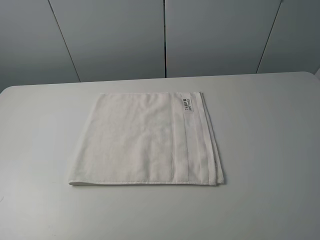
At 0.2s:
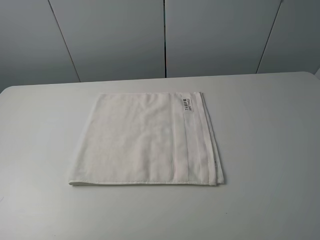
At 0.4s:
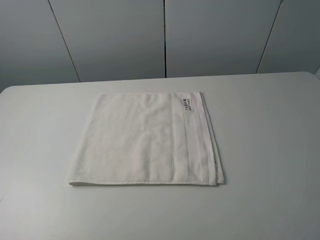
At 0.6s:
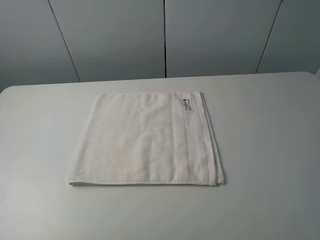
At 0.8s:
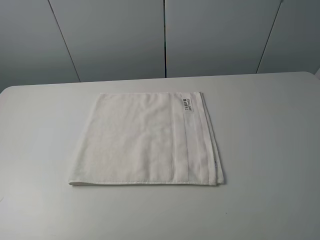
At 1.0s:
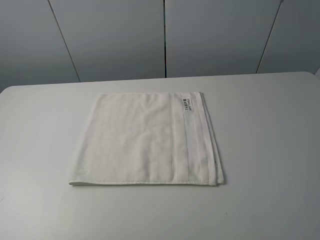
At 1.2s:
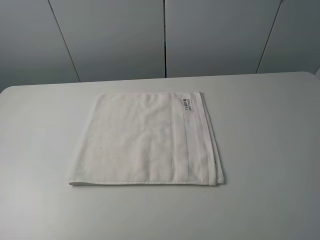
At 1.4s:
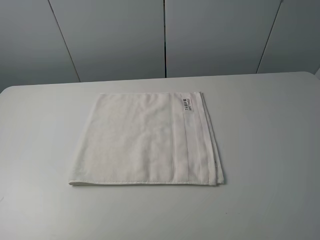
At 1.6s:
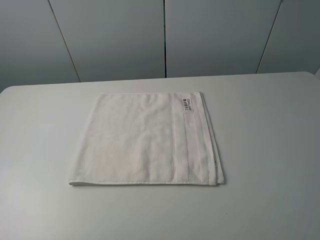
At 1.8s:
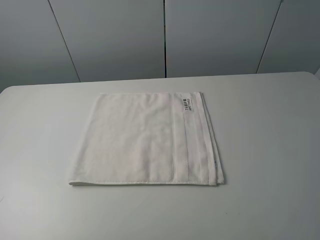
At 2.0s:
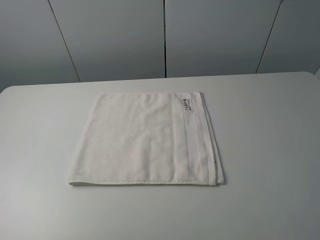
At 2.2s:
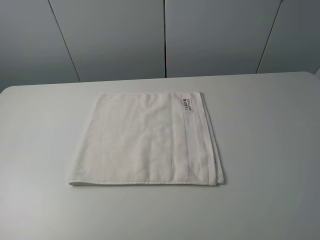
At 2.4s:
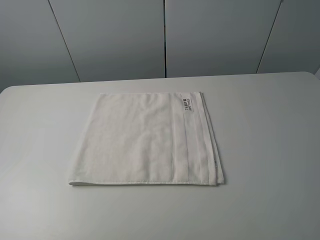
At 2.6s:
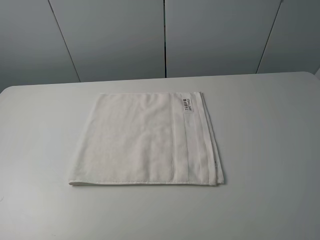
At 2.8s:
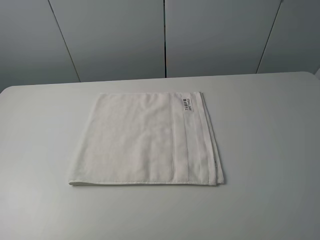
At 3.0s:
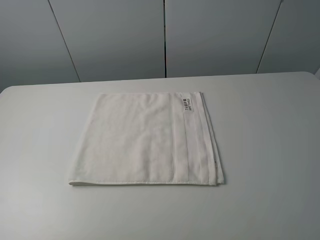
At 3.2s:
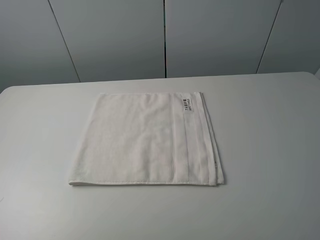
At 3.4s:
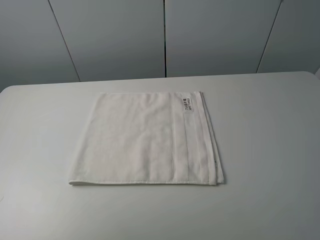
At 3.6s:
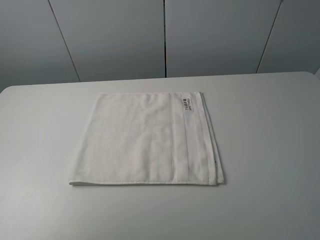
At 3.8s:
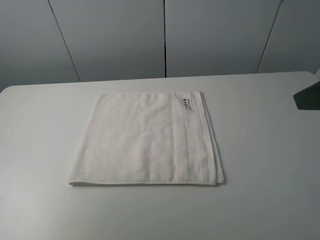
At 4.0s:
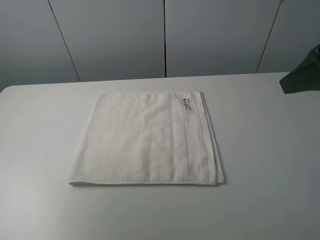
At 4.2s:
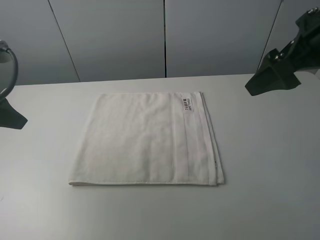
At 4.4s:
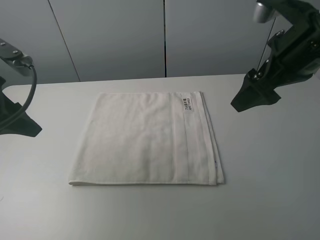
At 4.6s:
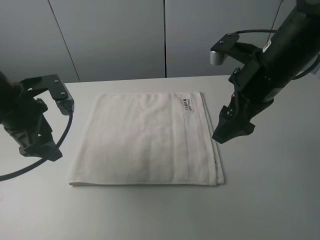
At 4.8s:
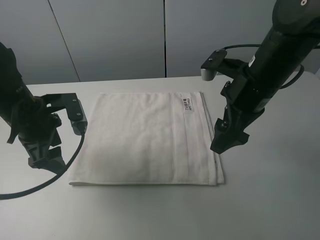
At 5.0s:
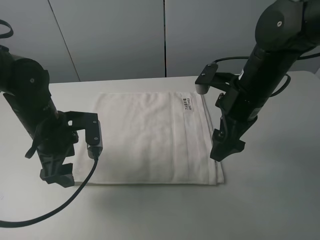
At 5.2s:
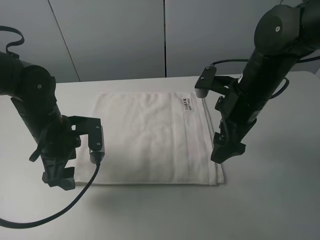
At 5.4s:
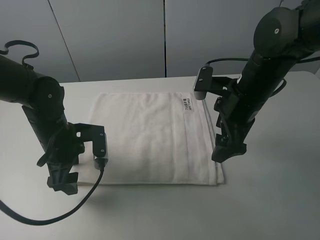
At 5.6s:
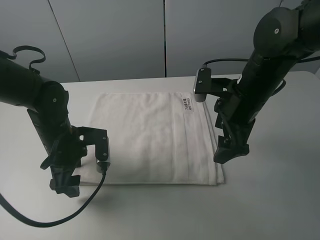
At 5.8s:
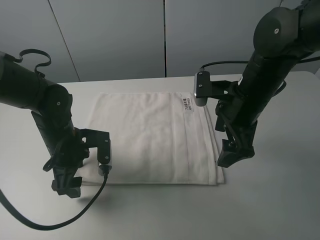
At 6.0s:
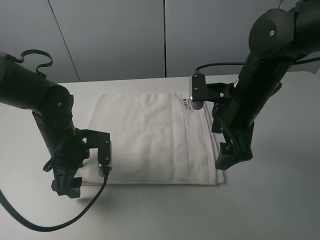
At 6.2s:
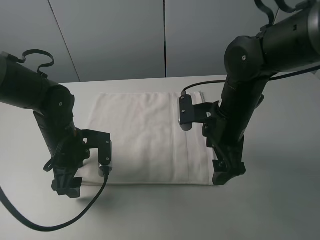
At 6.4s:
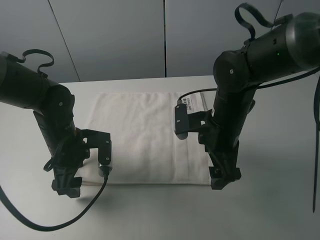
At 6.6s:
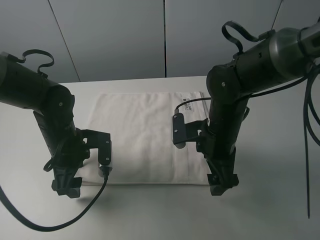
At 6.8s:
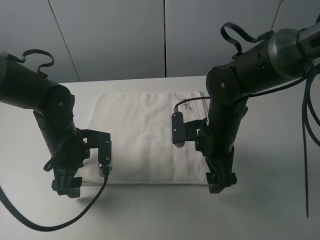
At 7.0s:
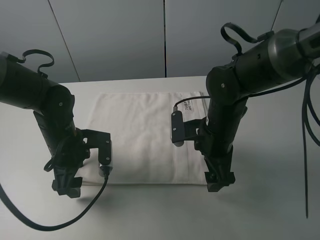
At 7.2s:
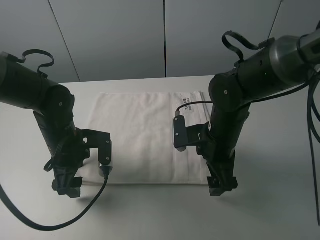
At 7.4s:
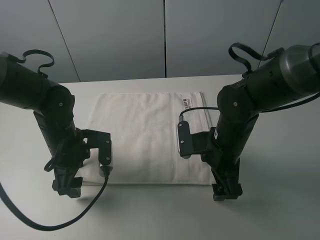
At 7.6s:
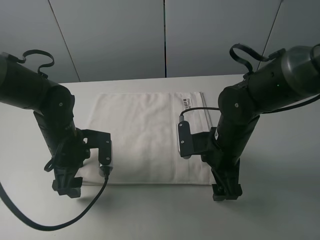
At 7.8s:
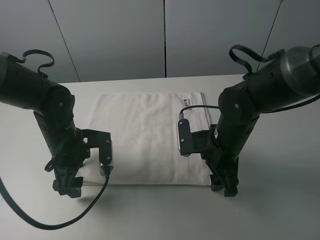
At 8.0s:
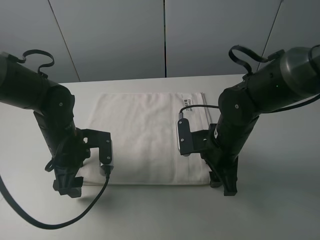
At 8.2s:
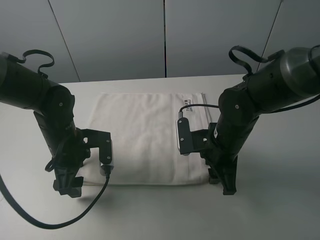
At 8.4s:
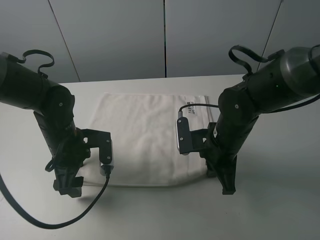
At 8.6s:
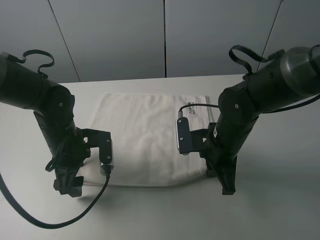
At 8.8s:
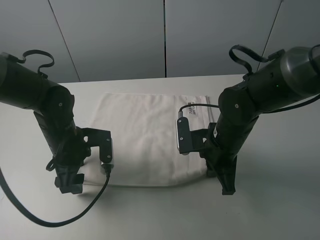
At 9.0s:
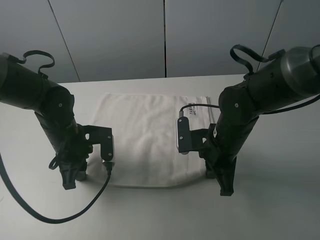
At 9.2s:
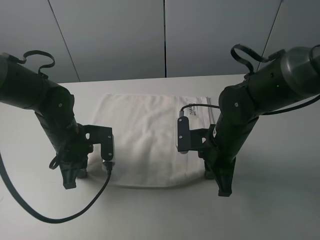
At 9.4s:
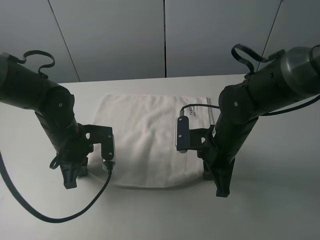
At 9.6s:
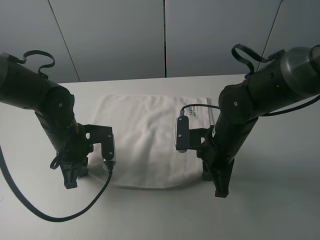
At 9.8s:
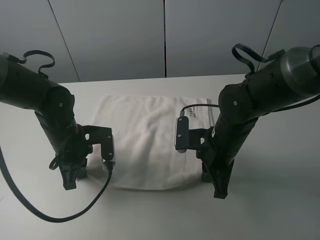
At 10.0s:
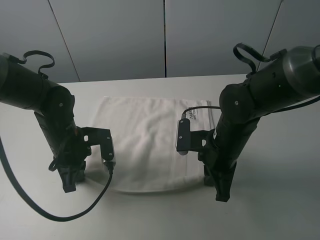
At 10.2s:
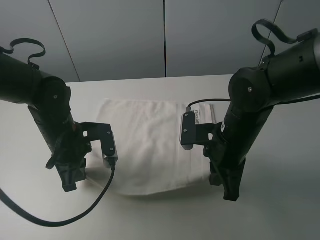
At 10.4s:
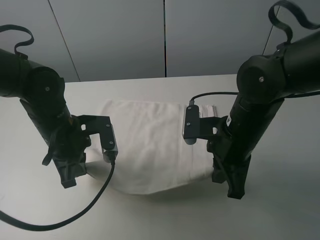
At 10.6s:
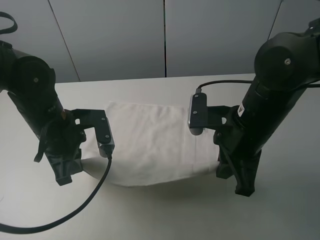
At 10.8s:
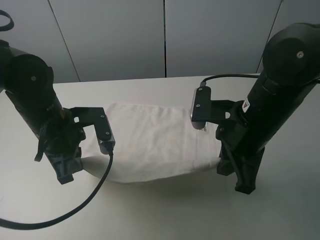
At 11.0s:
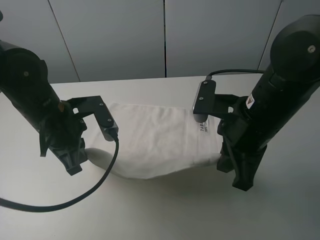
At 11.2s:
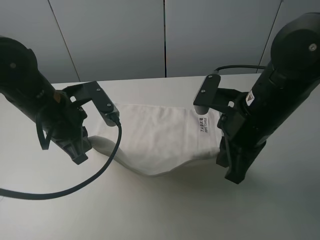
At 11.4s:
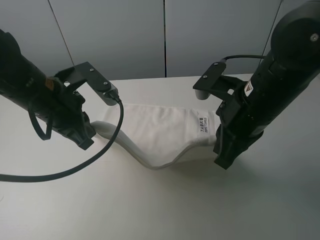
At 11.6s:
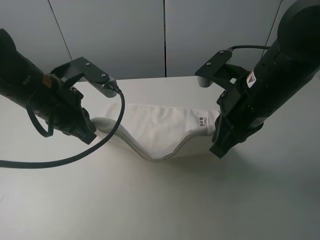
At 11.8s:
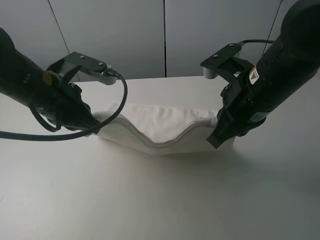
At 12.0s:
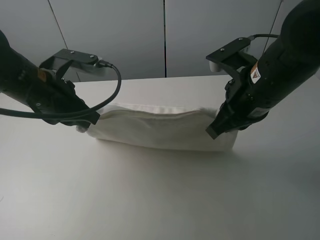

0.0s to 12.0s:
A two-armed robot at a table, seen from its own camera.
Task of the whole recording: fold the towels on the table.
Step, 0.0s to 8.4s: Grasp the white towel with the right gripper.
Step, 8.6s to 9.4s: Grasp the white towel with the left gripper.
0.0s to 1.6s: Both grippers stay put.
3.0s to 4.4s: The right gripper moves forward, roughly 25 cm; the left gripper shifts approximately 25 cm forward and to the right.
4.4s to 6.0s: The left gripper heads downward and to the right, covering some 15 cm, while the right gripper travels downward and to the left by about 10 cm.
6.0s to 7.6s: The right gripper heads downward, covering about 10 cm.
7.6s to 9.0s: The right gripper closes its fingers. Meanwhile the left gripper closes its fingers.
9.0s to 10.4s: The grippers both shift upward by some 5 cm.
10.4s to 12.0s: The grippers both shift upward by roughly 5 cm.

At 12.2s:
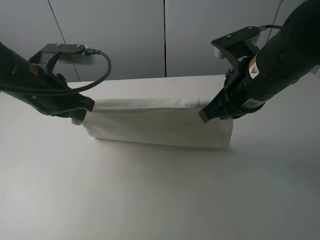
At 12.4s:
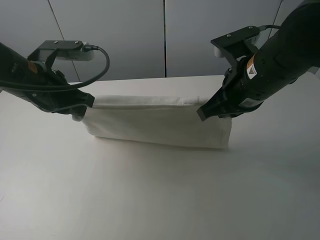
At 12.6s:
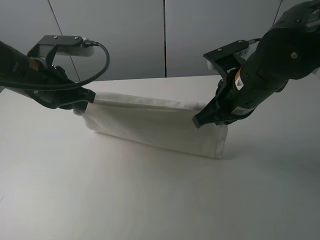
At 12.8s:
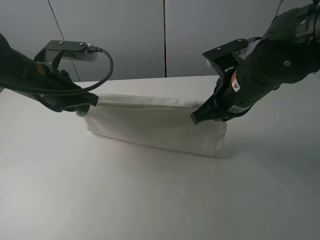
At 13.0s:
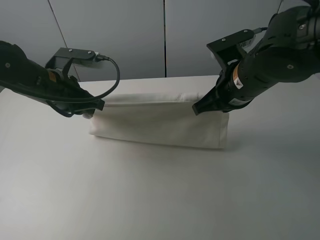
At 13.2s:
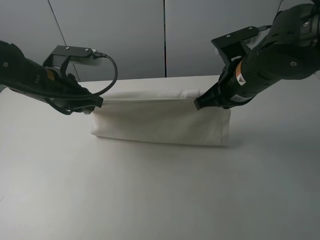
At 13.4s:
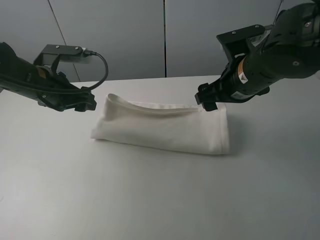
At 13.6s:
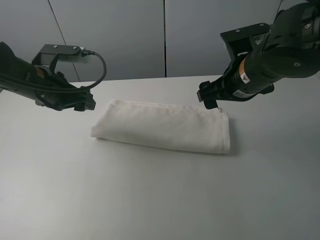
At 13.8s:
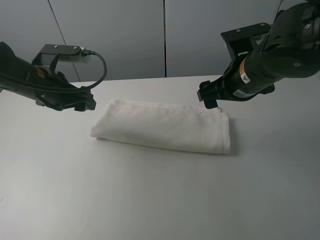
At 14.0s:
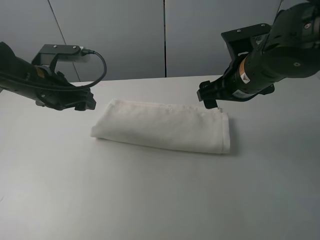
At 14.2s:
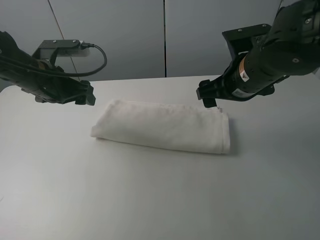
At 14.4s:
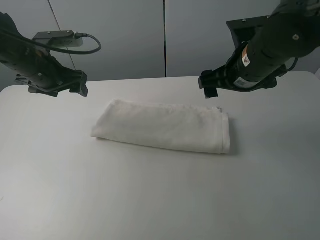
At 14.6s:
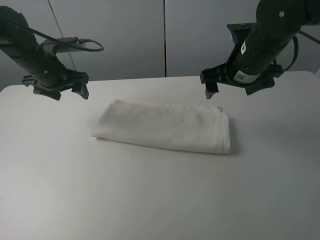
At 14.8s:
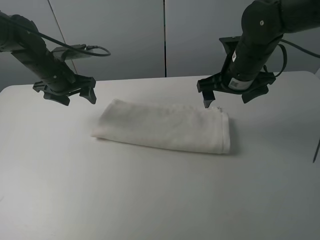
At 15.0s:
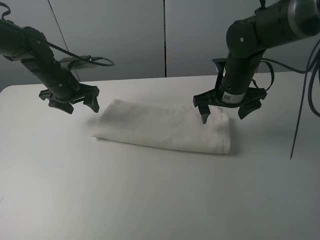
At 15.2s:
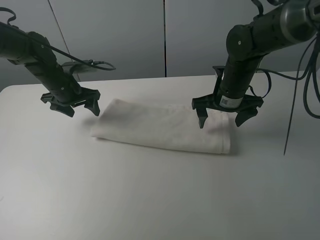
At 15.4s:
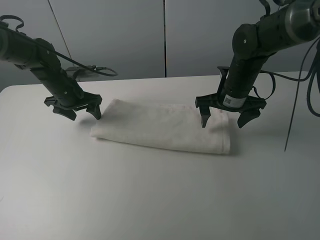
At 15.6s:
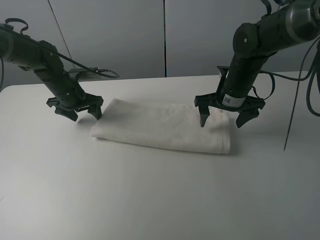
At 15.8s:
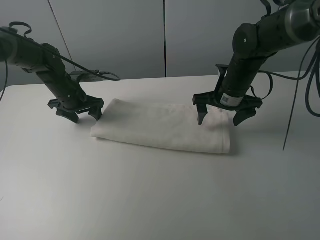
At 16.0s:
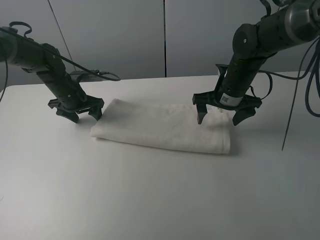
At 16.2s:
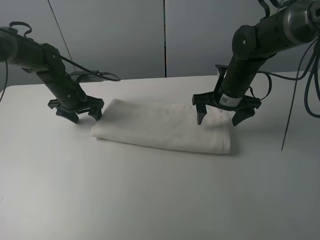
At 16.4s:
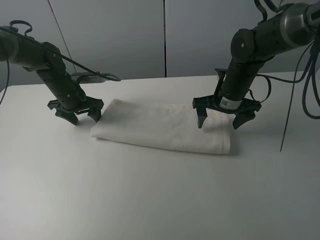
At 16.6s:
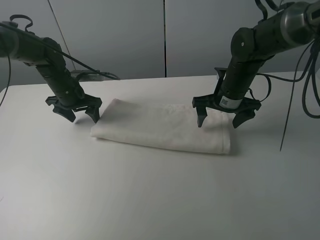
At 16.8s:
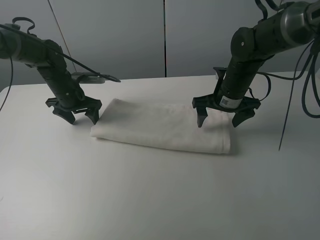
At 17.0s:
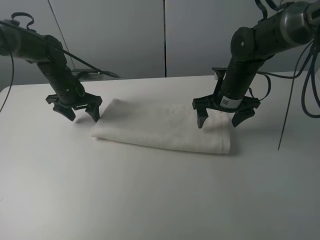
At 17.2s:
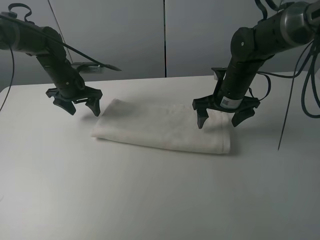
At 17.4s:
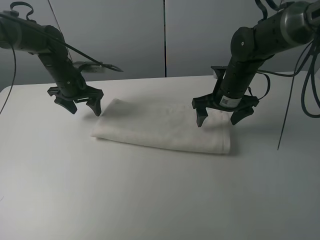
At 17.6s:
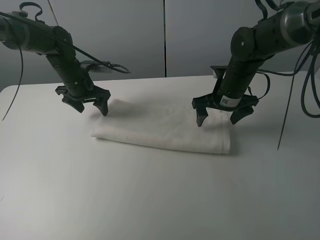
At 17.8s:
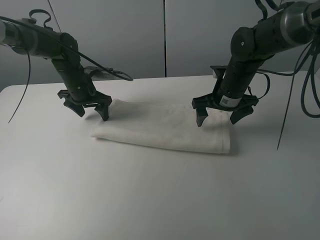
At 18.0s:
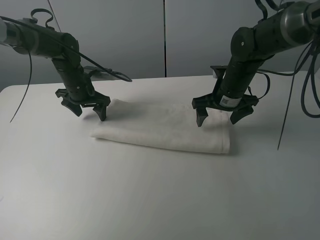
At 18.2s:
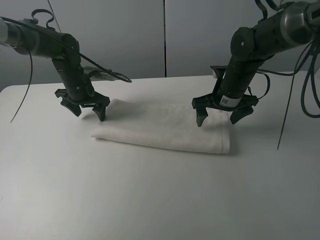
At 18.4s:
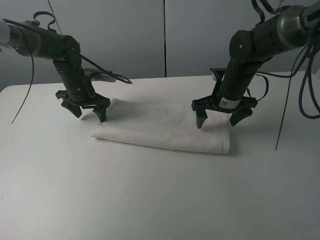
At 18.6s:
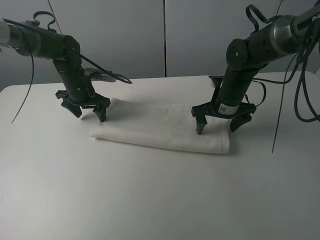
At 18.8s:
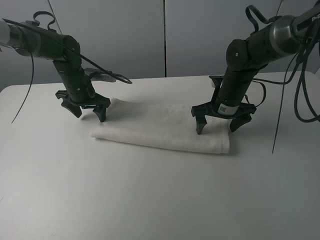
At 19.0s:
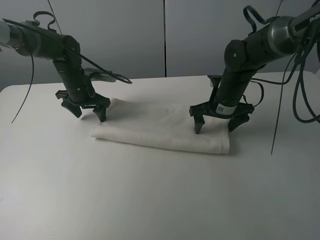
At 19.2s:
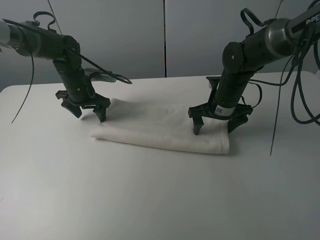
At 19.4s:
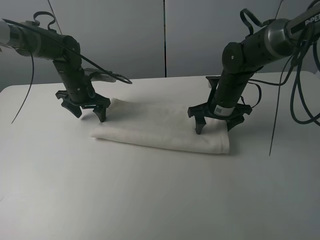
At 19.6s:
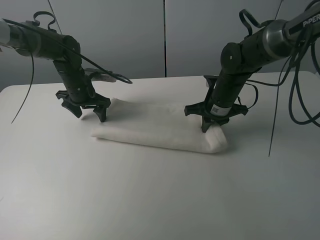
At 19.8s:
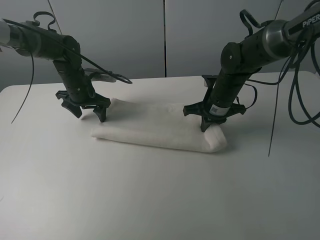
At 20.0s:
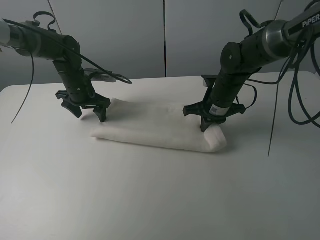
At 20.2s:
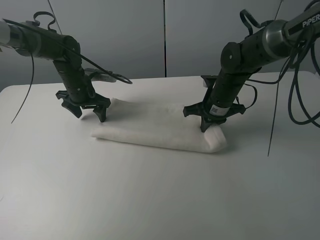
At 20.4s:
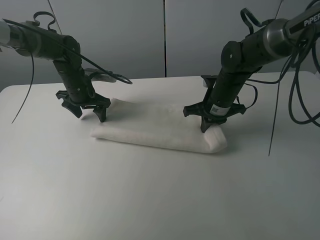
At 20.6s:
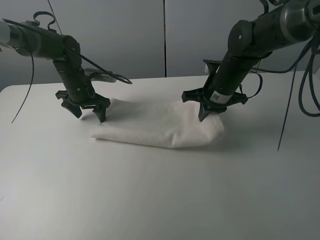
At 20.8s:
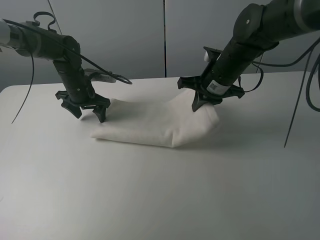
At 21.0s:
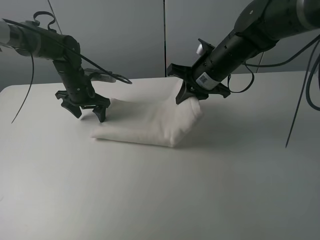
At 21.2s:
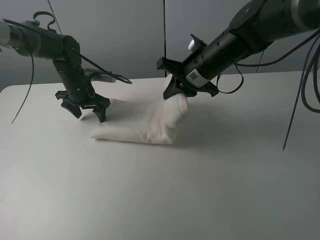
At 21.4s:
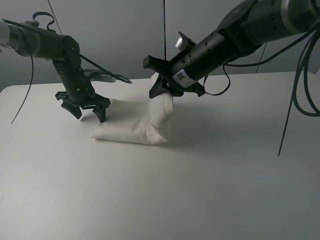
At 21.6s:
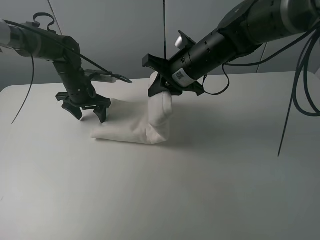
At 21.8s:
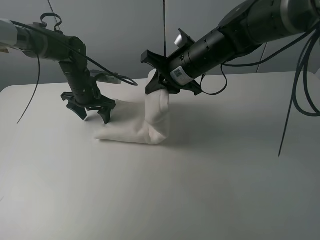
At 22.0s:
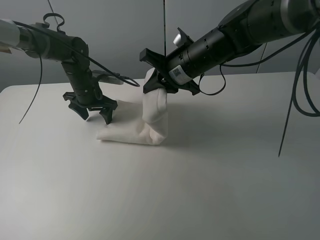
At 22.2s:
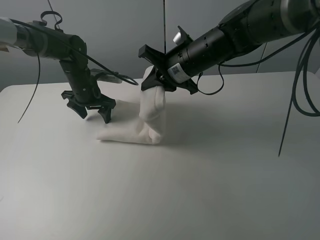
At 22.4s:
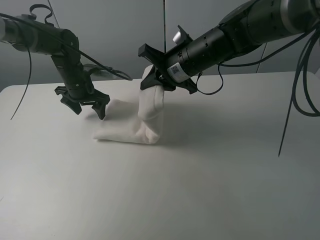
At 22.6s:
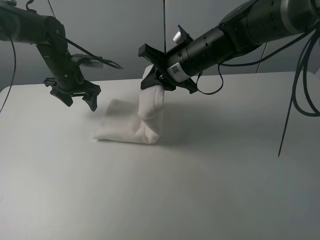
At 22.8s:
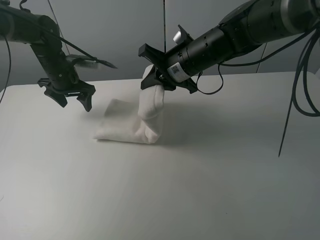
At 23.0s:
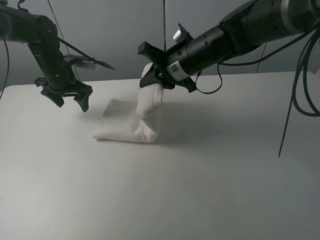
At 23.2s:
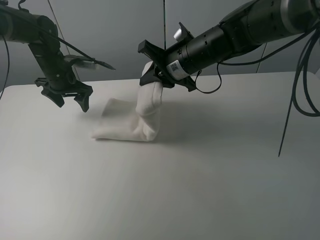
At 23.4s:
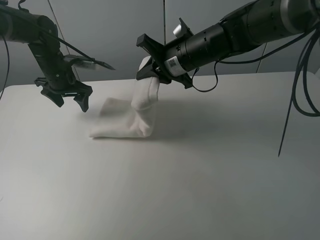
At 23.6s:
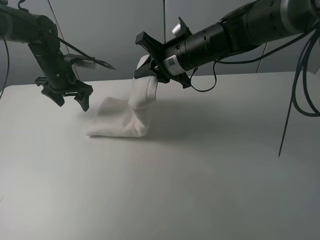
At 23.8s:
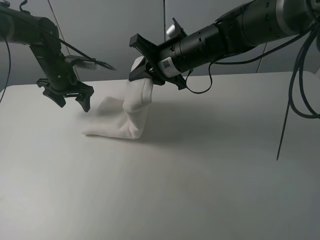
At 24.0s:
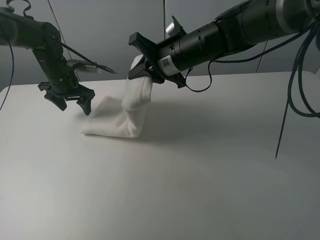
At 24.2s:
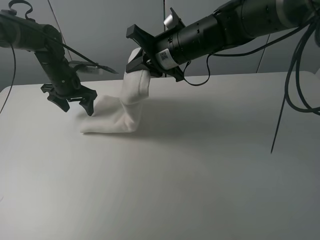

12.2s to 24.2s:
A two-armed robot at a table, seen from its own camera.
Task of the whole recording: fold the towels on the table.
Step, 13.8s to 18.4s: Press on the white towel with the left gripper.
12.2s to 13.8s: The left gripper moves some 5 cm, and opens up. The right gripper opens up.
13.8s to 15.2s: Both grippers move forward and downward, some 10 cm.
15.2s to 18.2s: The grippers stay close to where they were, moving slightly.
18.2s to 19.8s: The right gripper closes its fingers.
19.8s to 21.2s: The right gripper heads upward and to the left, covering some 10 cm.
21.2s to 24.2s: The grippers stay close to where they were, moving slightly.
